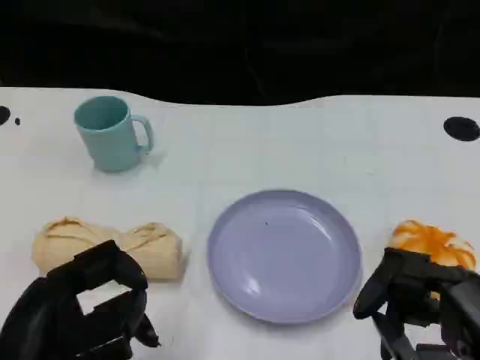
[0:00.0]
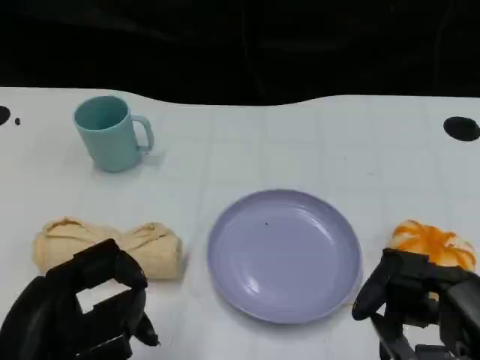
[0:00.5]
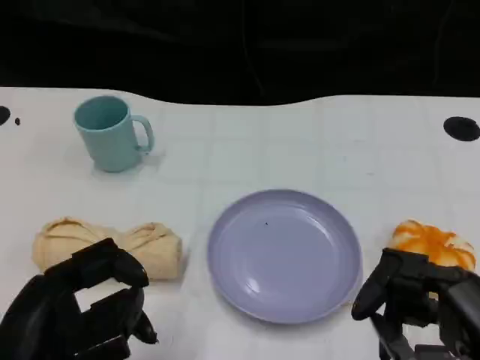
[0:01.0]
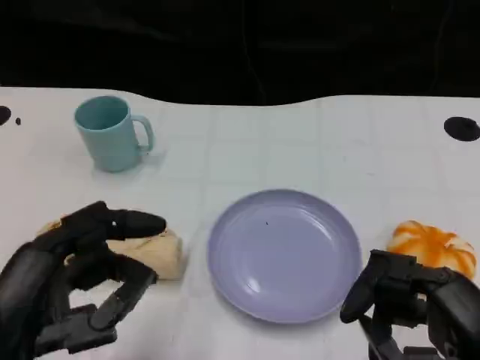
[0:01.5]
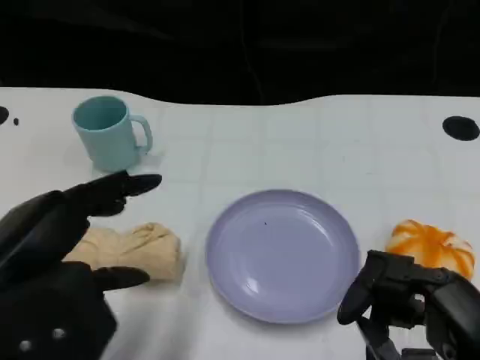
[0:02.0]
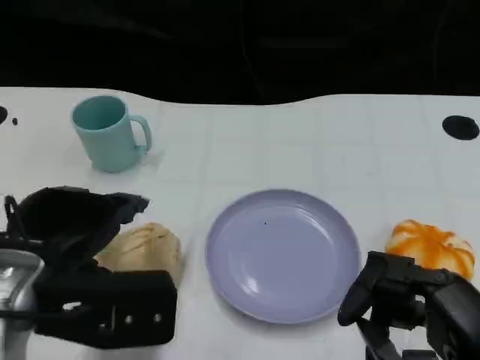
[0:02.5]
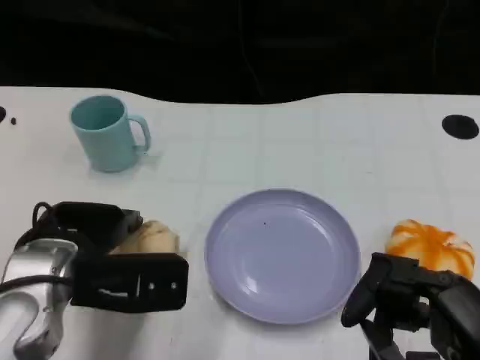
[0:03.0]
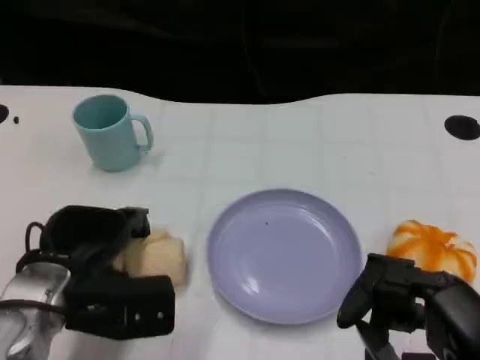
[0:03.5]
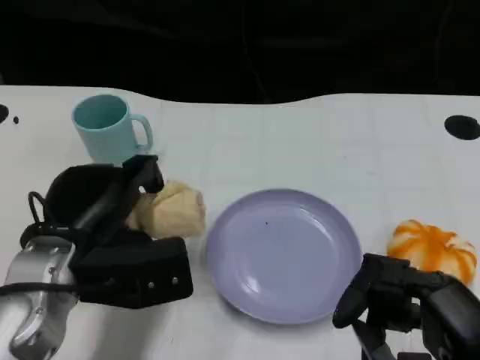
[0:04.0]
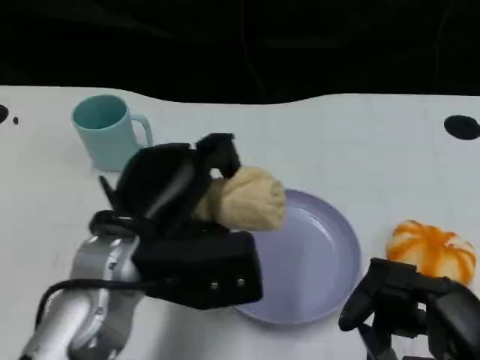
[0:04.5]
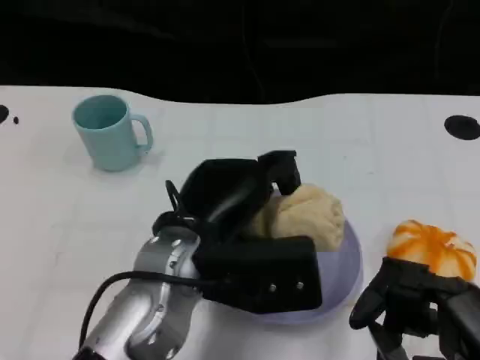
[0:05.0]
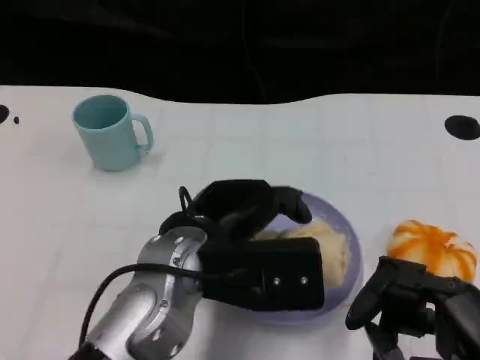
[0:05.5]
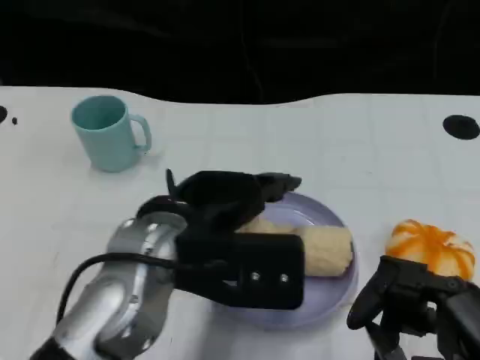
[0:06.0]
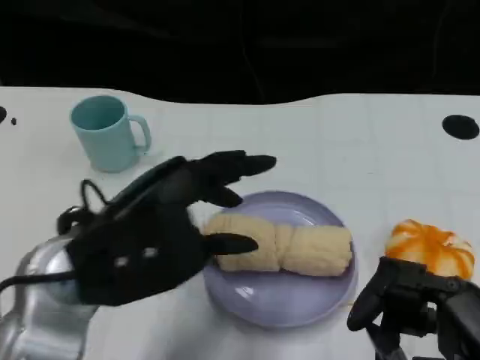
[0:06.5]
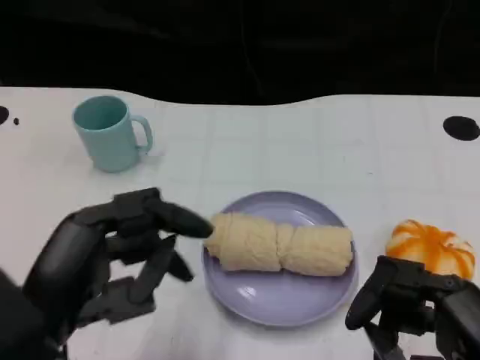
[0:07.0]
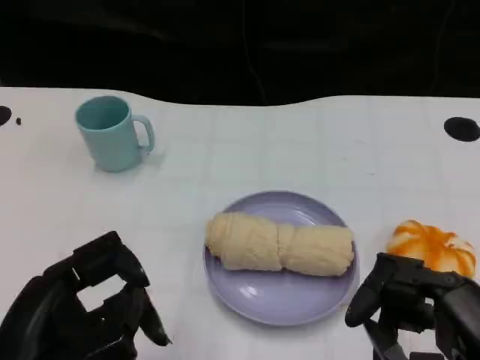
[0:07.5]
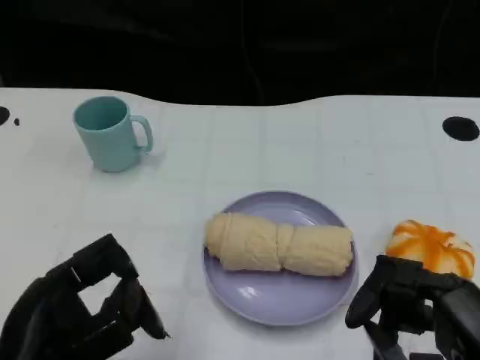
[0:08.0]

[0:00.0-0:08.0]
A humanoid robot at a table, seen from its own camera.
Task of the whole recording: Grasp the towel on the left side of the plate with the left hand and place it into the plate.
0:00.0 to 0:02.0: The left hand shifts by about 5 cm.
0:02.0 to 0:04.0: The left hand shifts approximately 10 cm forward and downward.
0:04.0 to 0:06.0: The left hand heads to the right and upward, covering roughly 10 cm.
0:06.0 to 0:08.0: The left hand moves backward and to the left, some 15 cm.
